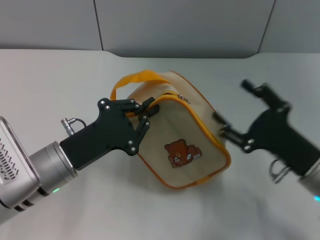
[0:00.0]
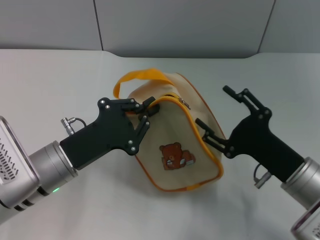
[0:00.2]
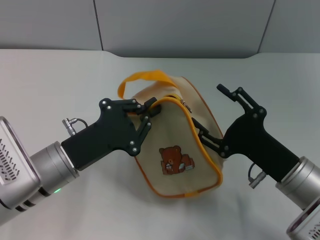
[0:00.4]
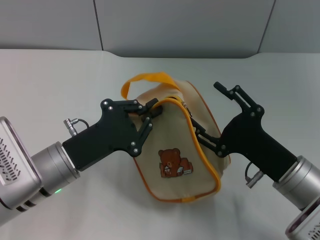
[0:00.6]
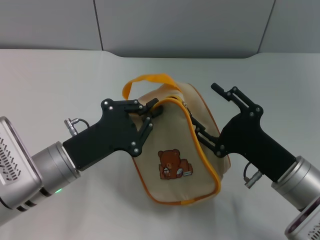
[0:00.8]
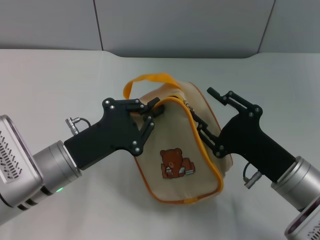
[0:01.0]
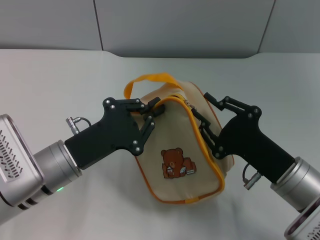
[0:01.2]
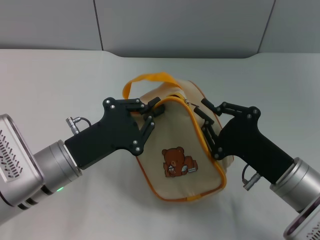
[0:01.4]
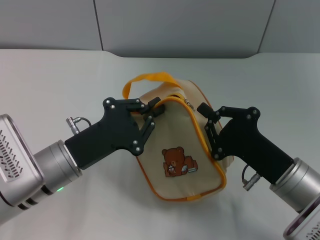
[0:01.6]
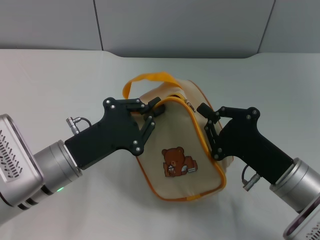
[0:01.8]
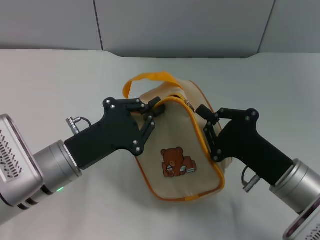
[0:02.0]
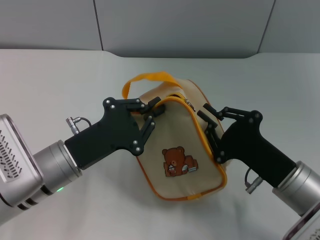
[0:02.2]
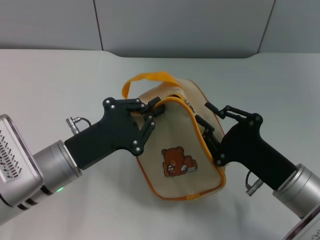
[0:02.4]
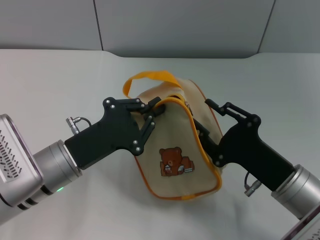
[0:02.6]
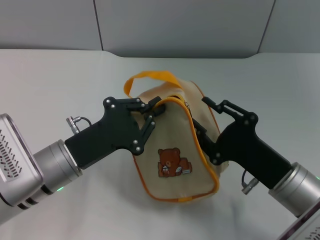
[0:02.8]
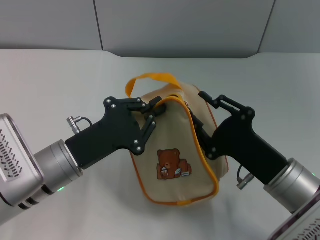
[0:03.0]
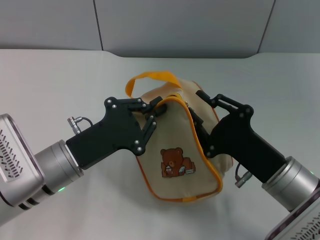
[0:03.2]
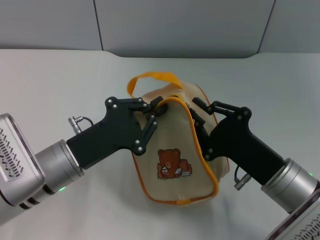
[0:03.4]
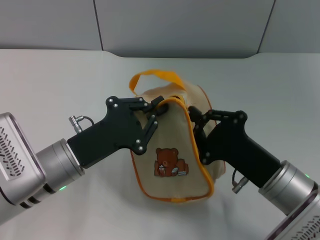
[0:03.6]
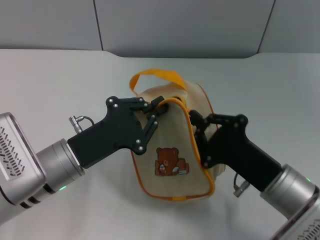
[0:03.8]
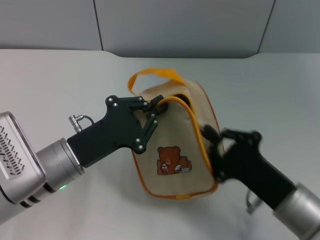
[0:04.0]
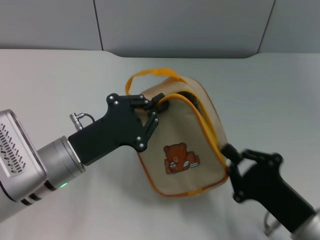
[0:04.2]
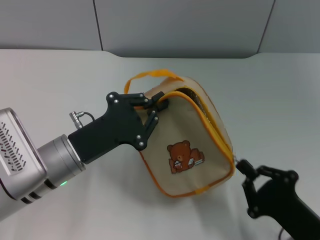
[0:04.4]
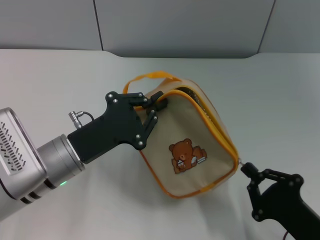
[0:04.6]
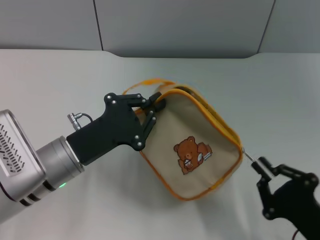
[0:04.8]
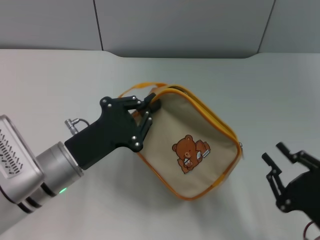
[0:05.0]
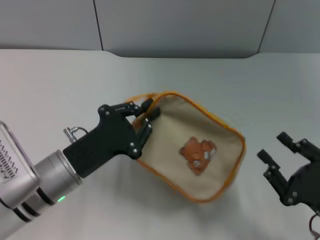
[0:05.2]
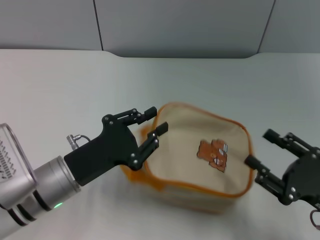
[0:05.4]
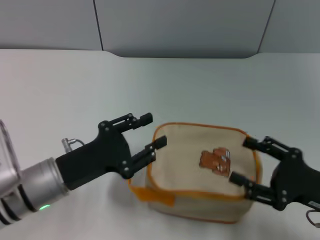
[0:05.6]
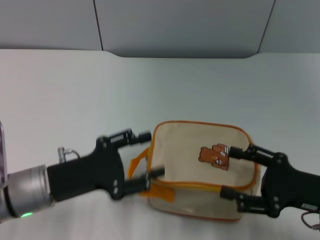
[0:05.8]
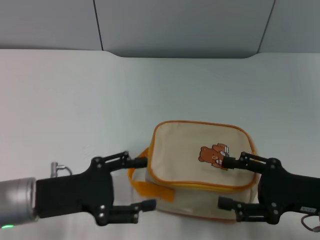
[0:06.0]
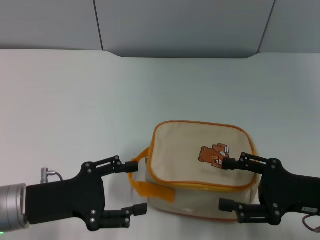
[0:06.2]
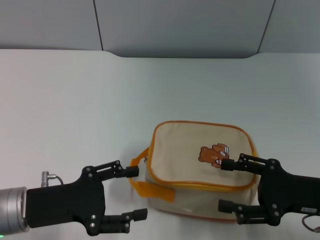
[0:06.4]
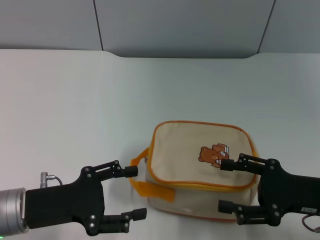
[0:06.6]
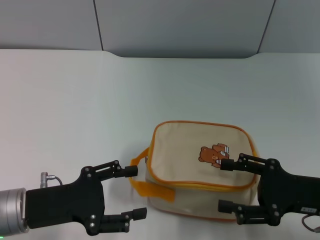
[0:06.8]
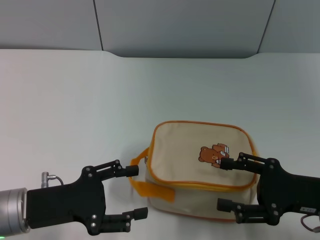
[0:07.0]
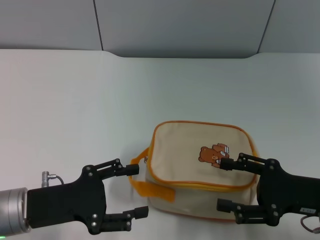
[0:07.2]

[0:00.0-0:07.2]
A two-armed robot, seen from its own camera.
Step, 0.0 to 4.8 s: Unzip the zipper of bag with right gripper.
Step, 5.0 to 5.4 s: Place the bag on the table with left gripper.
0.0 to 1.4 s: The right gripper closes up.
1.4 to 2.8 s: The right gripper closes, then opens again.
2.8 to 4.4 s: The right gripper is displaced backward by some 10 cm, and closes its fingers.
4.4 to 5.8 s: The right gripper heads forward and upward, covering roughly 10 cm, and opens, while the left gripper opens up.
5.8 to 7.2 s: The grippers make only small movements.

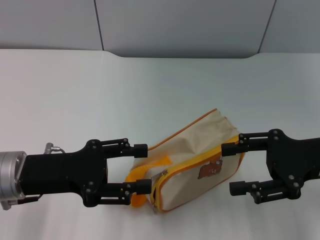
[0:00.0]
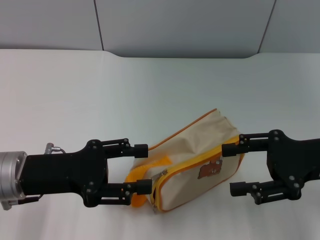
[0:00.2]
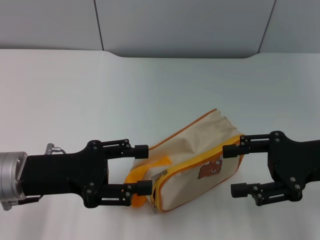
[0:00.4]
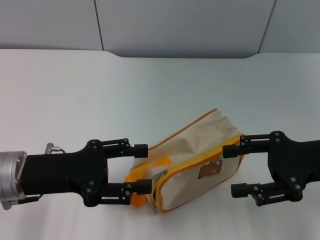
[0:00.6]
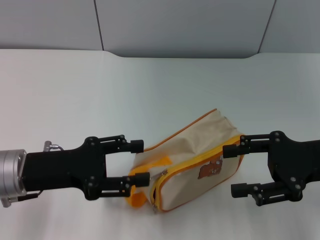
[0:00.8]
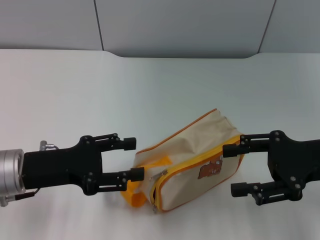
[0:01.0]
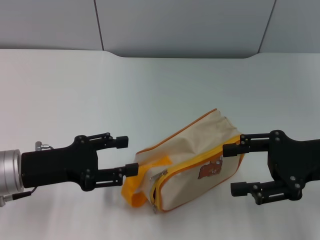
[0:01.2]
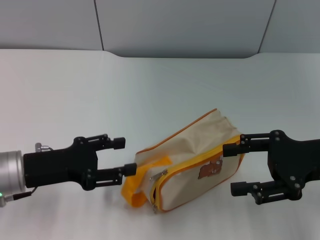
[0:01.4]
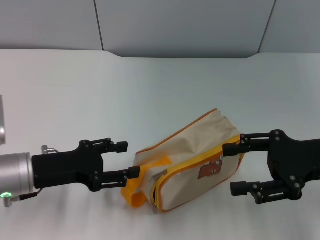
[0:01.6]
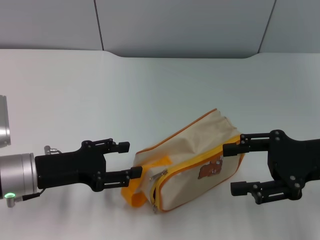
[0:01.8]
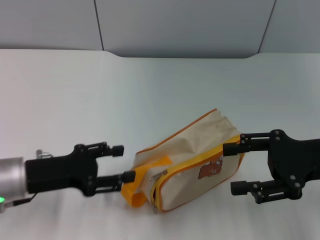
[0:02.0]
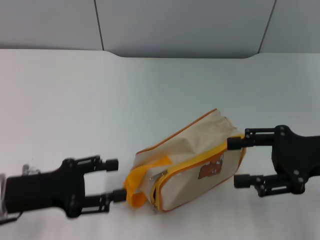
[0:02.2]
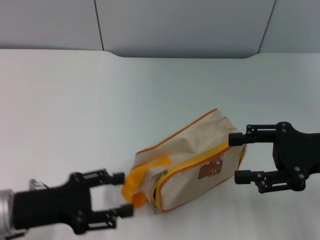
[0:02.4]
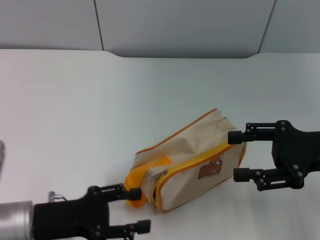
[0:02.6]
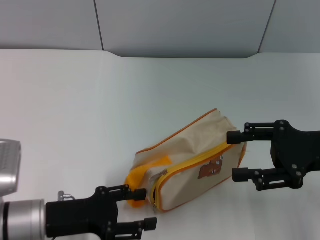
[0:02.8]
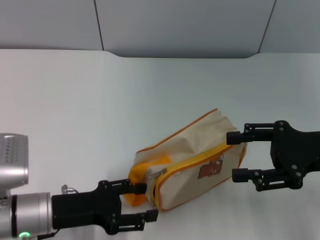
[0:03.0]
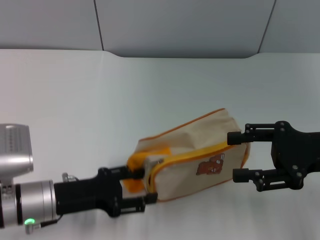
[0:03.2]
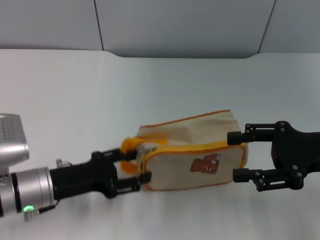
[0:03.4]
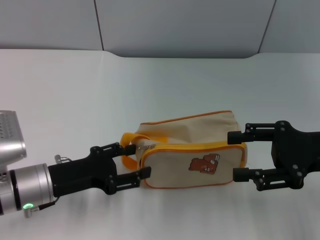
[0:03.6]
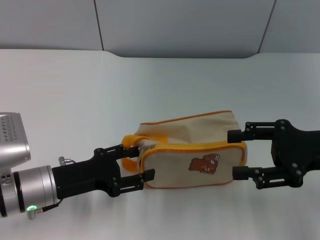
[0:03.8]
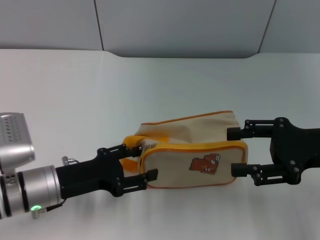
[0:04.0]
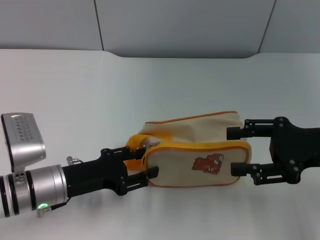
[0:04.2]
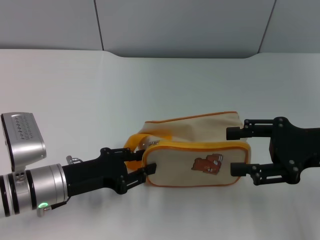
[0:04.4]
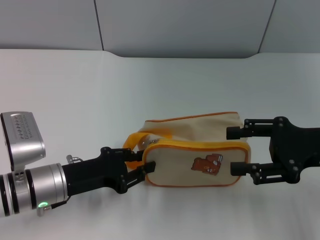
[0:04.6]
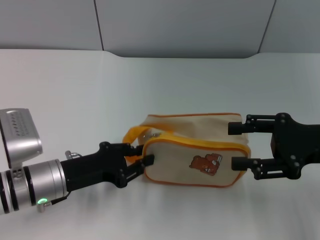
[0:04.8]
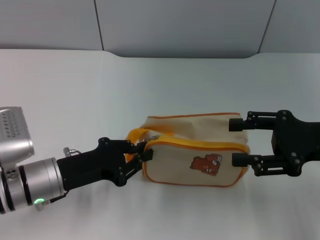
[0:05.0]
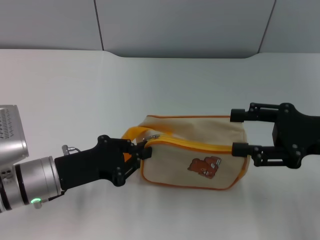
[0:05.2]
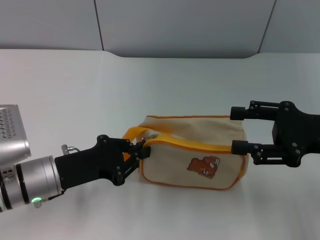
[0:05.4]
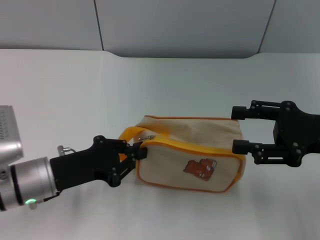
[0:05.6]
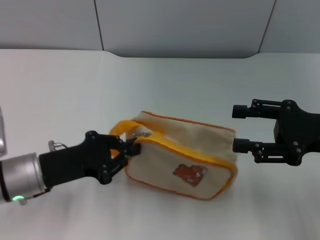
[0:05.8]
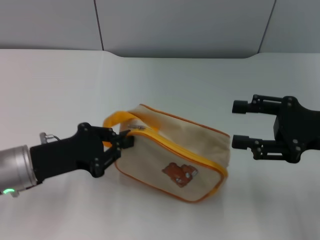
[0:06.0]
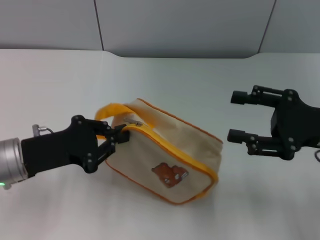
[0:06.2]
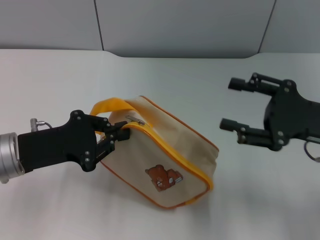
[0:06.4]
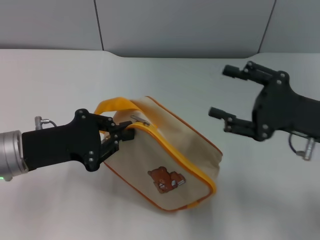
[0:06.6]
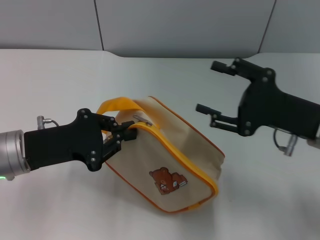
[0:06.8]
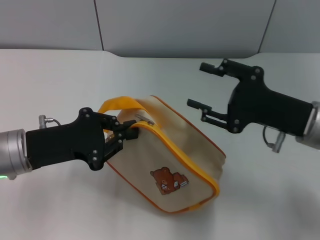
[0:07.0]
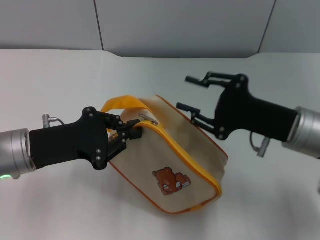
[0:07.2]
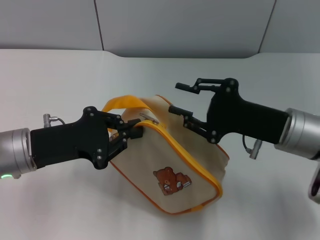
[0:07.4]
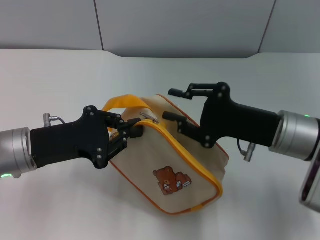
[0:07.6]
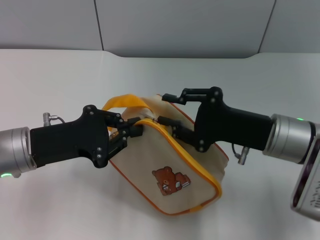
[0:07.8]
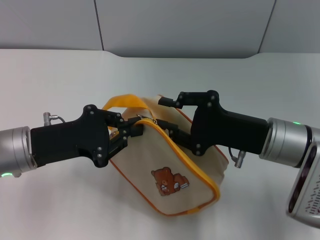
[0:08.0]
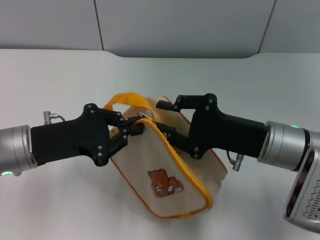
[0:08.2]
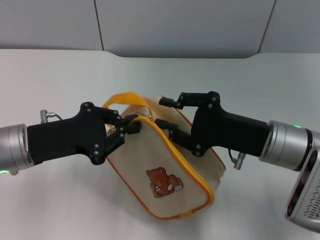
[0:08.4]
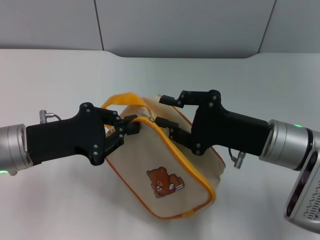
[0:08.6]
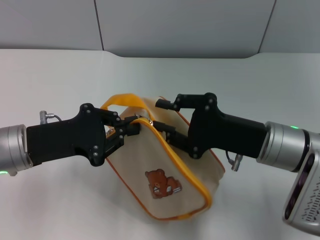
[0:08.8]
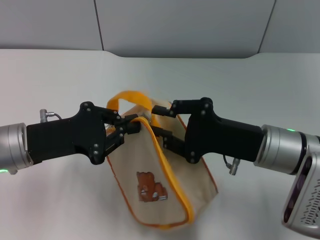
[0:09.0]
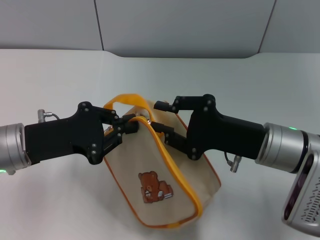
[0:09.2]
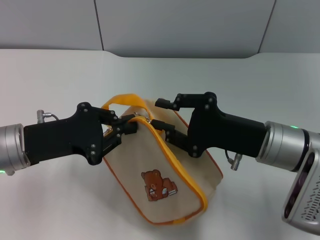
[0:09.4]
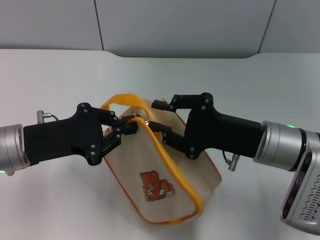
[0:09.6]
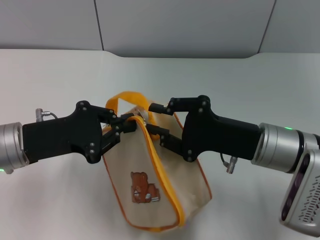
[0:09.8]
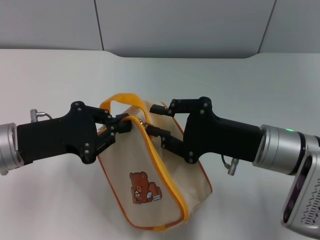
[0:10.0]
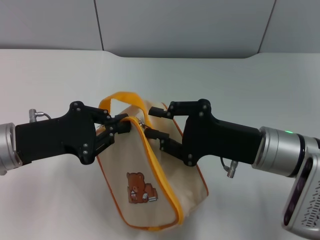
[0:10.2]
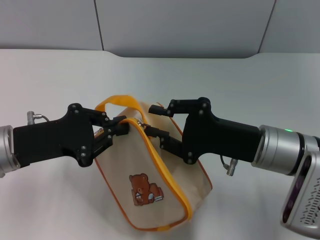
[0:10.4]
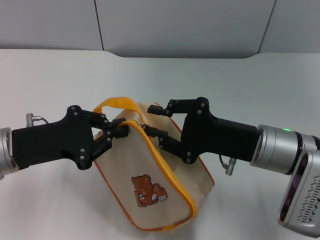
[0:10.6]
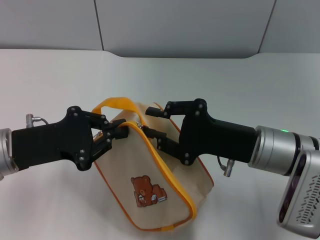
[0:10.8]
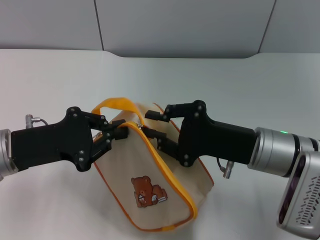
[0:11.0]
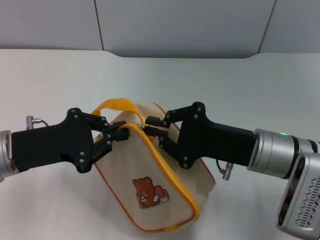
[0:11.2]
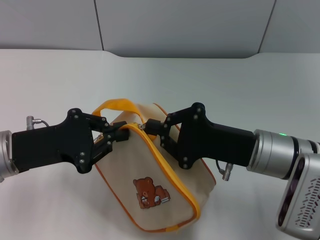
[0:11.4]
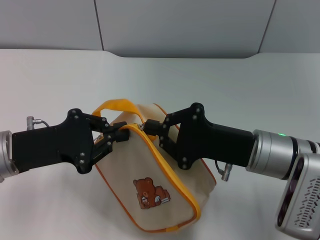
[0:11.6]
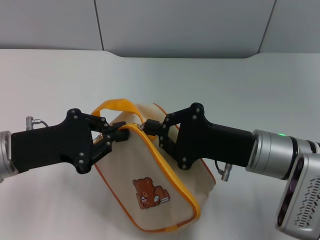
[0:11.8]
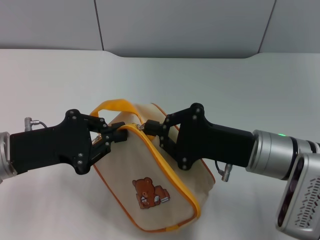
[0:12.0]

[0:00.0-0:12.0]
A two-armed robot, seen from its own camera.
Step, 0.0 to 6.6 s: Pick up the bag with left gripper.
0.0 to 1.6 s: The grippers move only a little.
1.6 to 3.0 s: The left gripper moves approximately 5 cm.
4.4 to 6.0 s: The left gripper changes place by some 5 cm, and closes its fingers.
6.0 to 7.6 s: The right gripper shifts about 10 cm to the left.
9.0 to 10.4 s: The grippers stay close to where they were, moving slightly.
10.4 to 12.0 s: The right gripper closes its fingers.

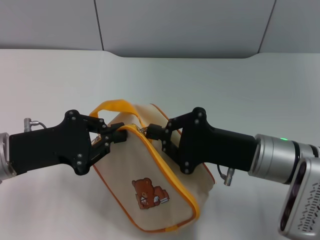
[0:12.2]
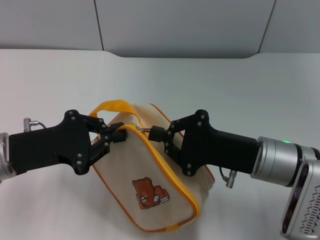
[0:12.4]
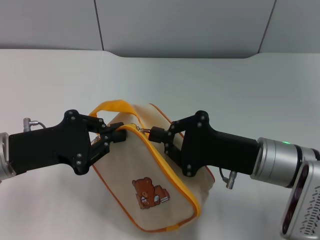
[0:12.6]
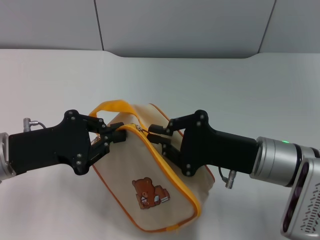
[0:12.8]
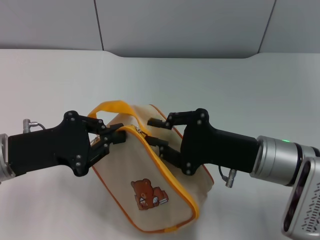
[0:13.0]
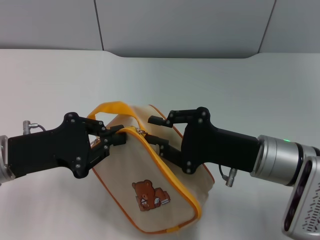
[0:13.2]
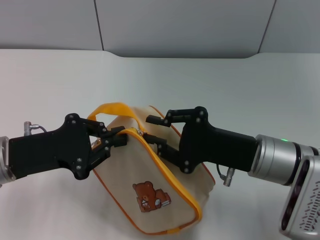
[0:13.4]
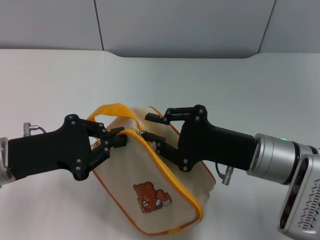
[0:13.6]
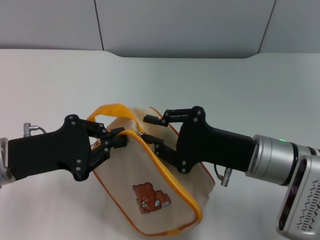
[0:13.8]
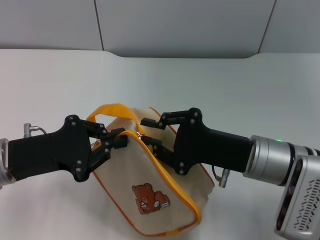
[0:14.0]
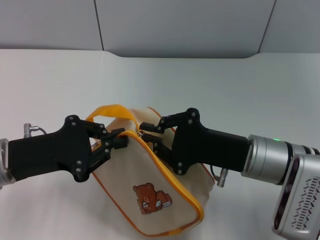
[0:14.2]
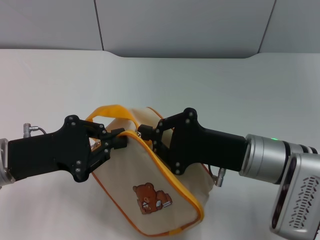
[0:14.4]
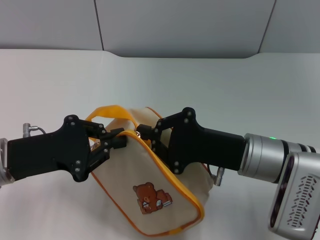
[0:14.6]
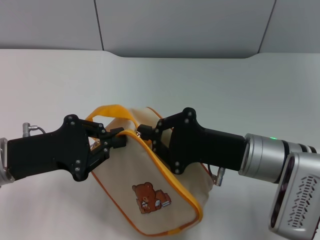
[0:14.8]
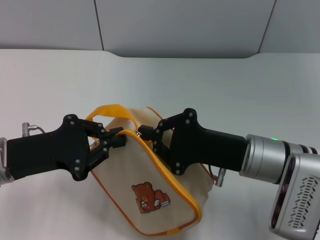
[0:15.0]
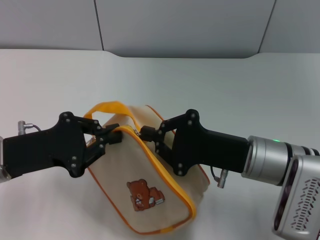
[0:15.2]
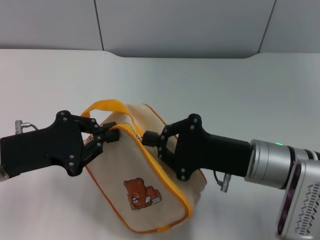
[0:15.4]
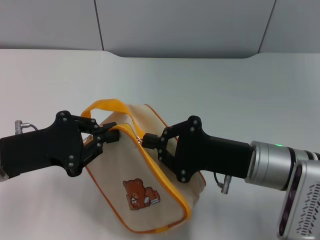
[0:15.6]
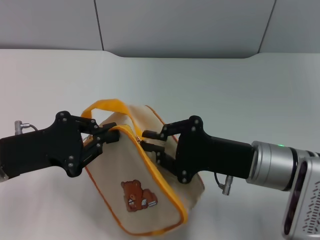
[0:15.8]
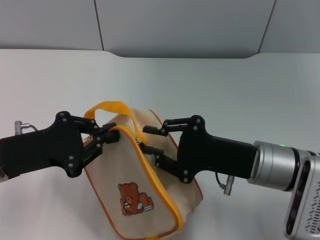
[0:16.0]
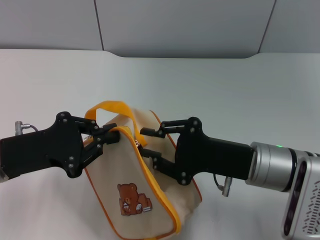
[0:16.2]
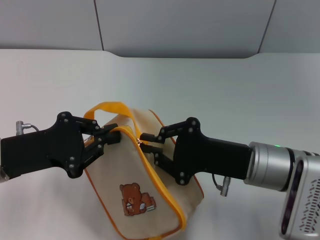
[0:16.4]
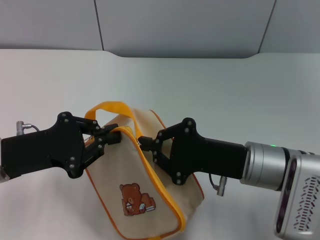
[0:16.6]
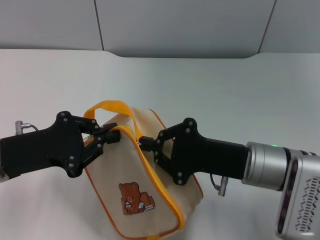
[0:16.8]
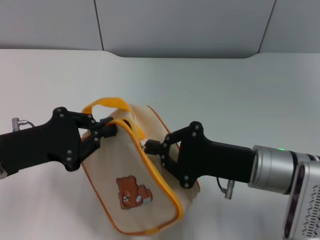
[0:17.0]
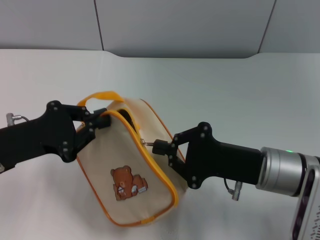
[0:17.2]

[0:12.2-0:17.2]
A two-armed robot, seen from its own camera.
12.2 to 15.6 s: The two grippers keep their place.
15.6 to 17.2 s: There are only small adjustments of the grippers.
